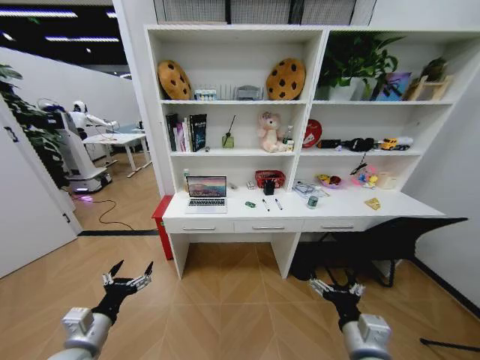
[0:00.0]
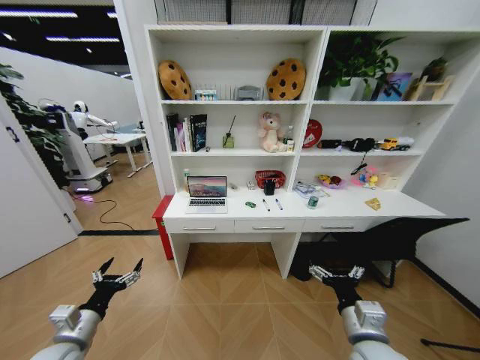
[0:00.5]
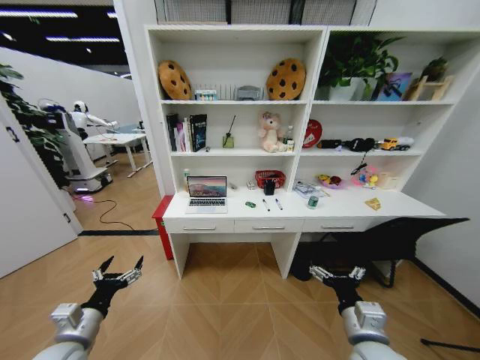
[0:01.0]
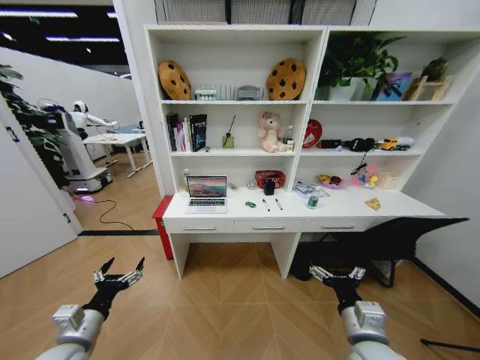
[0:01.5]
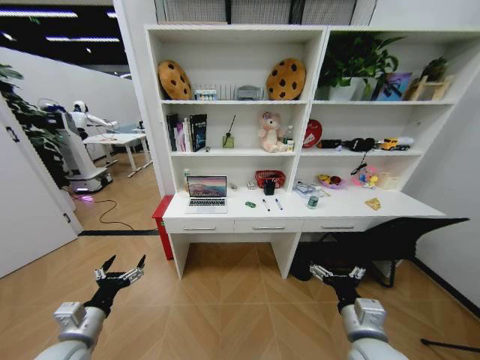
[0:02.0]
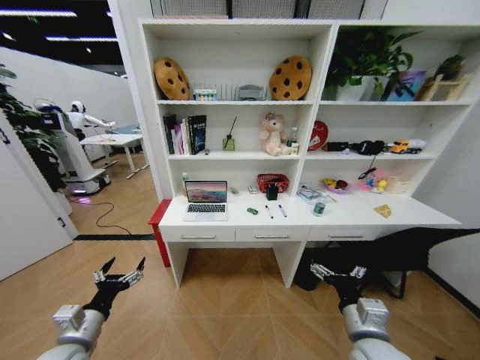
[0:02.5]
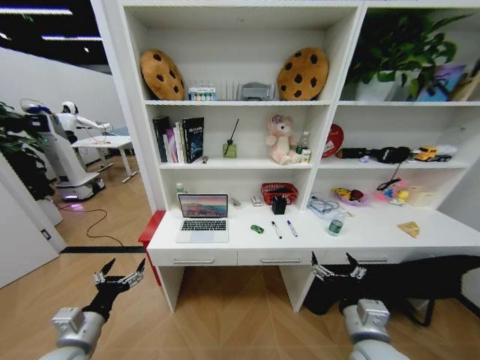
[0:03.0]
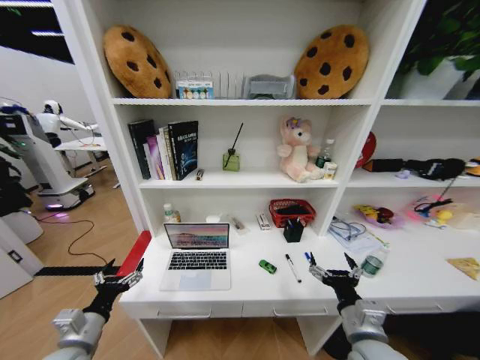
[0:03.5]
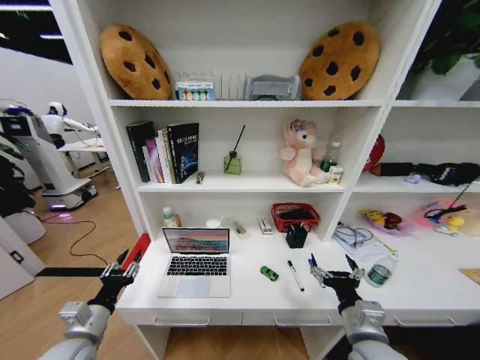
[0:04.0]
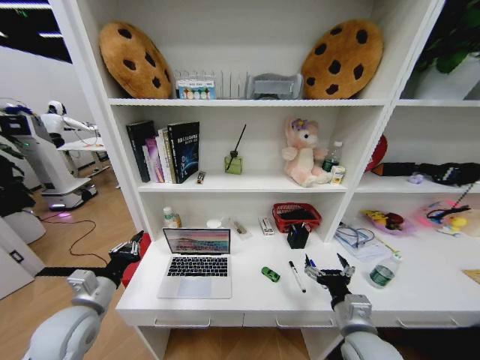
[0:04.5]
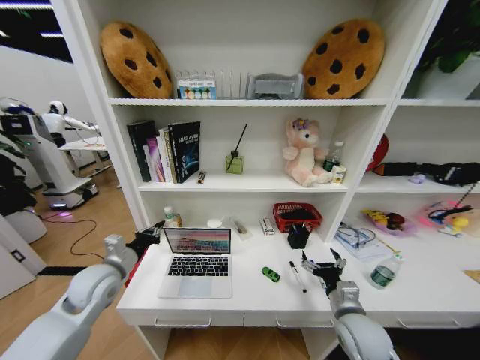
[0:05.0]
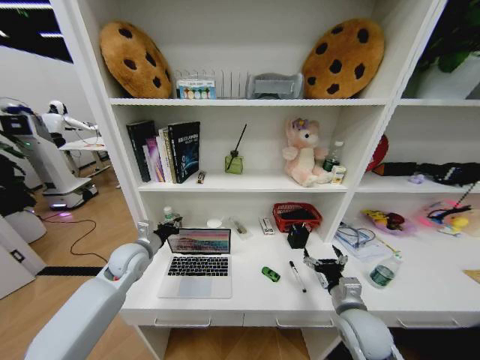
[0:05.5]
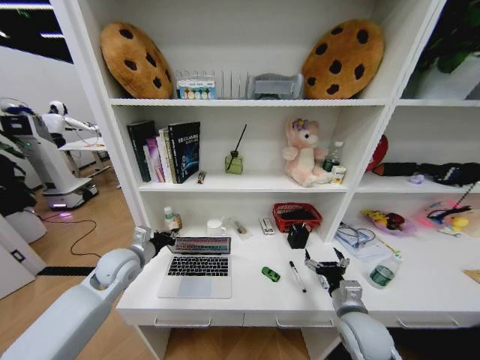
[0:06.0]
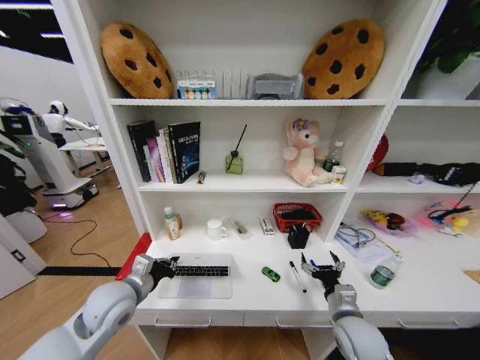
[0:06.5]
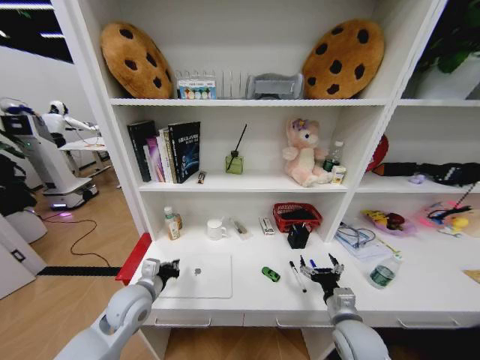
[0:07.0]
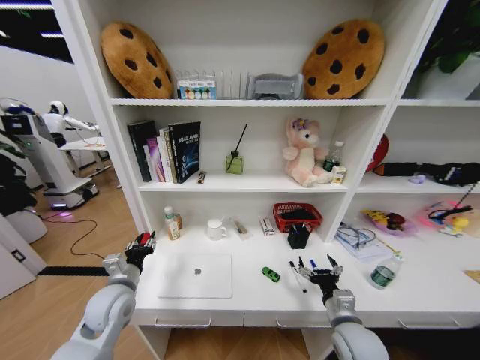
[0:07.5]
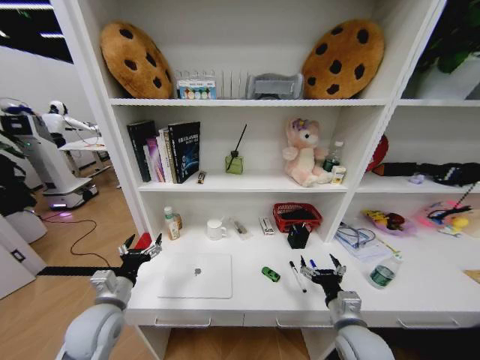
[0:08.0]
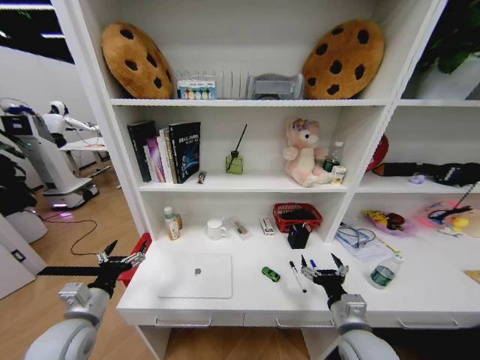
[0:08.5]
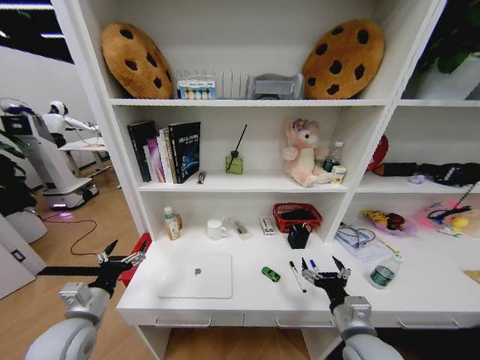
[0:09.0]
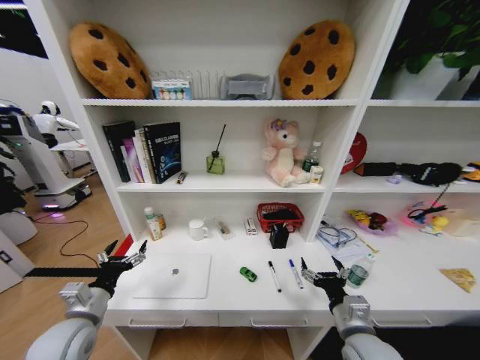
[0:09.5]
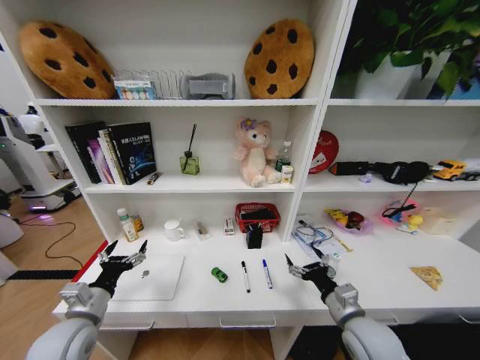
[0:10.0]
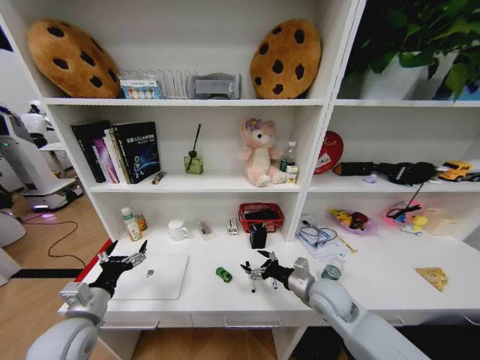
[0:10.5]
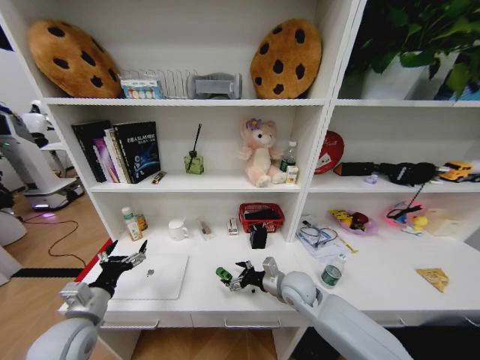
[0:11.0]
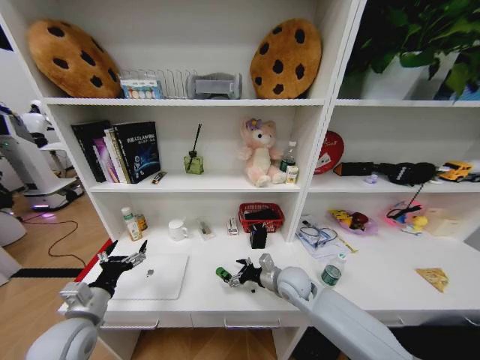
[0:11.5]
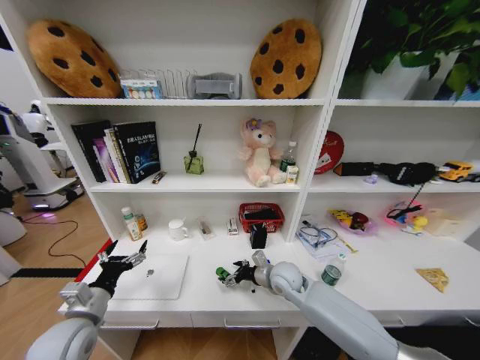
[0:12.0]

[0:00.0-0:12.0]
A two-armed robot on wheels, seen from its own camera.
Task of the whole recording: Organize the objects on the table.
0:02.0 to 0:04.0: The left gripper closes its fingers.
0:04.0 to 0:06.0: The left gripper travels forward by about 20 cm, and closes; the right gripper moves forward, approximately 5 cm.
0:06.0 to 0:08.0: The left gripper heads backward, covering approximately 15 cm, and opens.
0:10.0 to 0:12.0: The right gripper heads forward and to the left, covering about 20 cm.

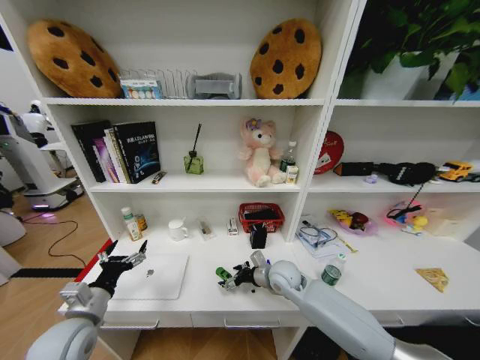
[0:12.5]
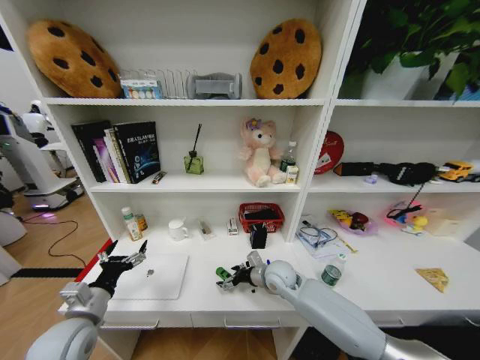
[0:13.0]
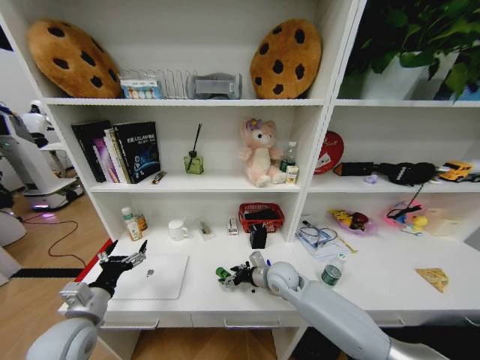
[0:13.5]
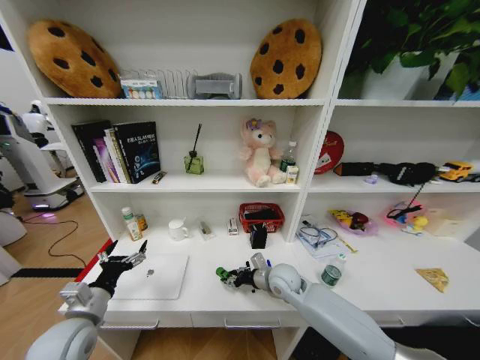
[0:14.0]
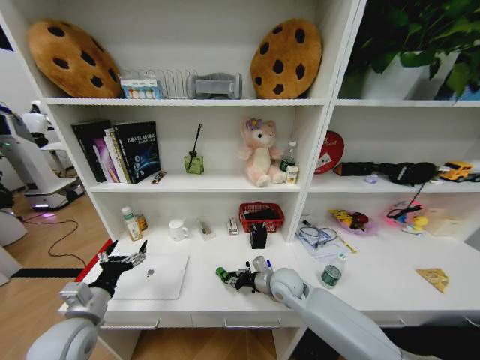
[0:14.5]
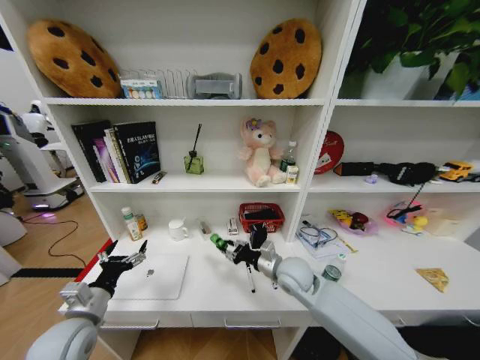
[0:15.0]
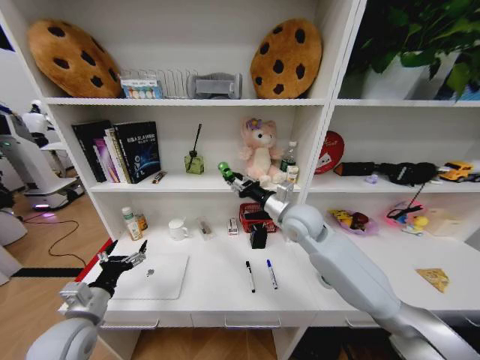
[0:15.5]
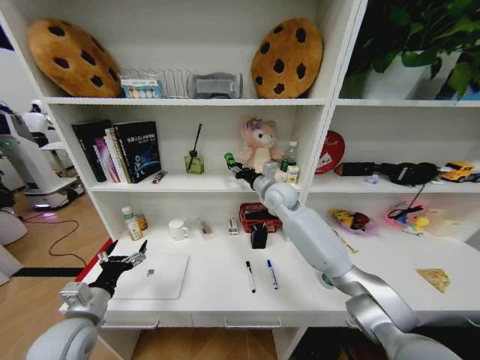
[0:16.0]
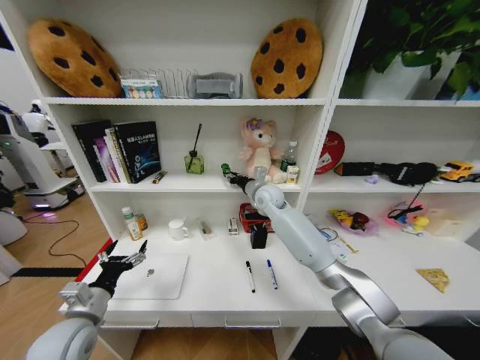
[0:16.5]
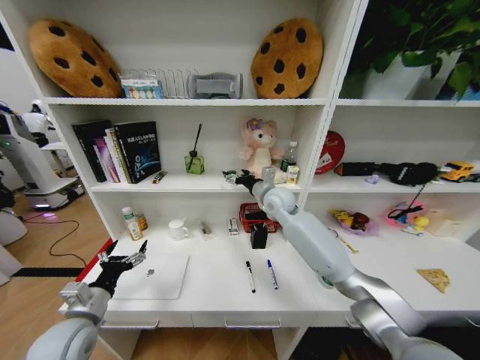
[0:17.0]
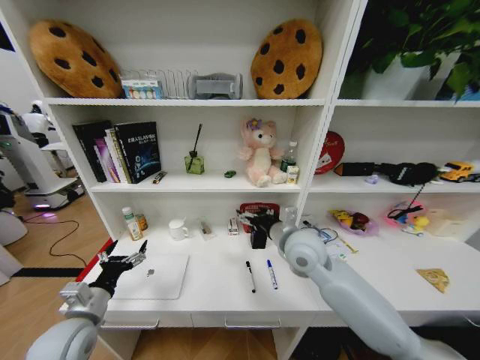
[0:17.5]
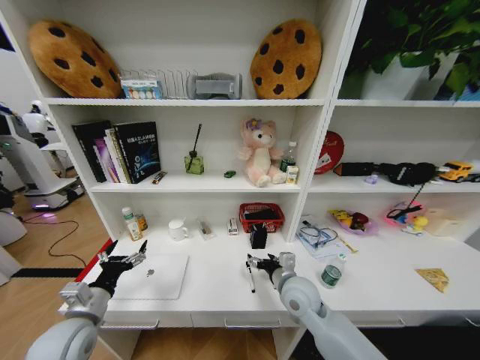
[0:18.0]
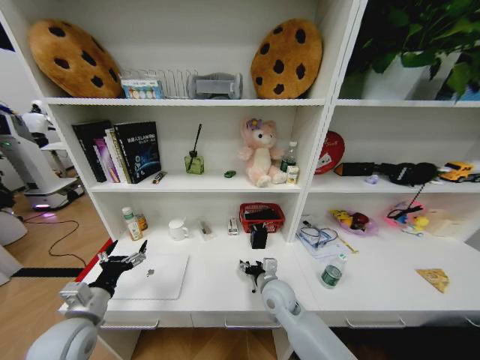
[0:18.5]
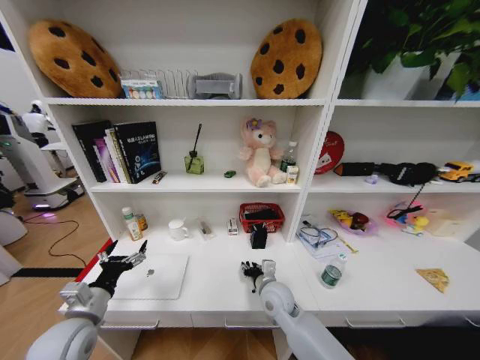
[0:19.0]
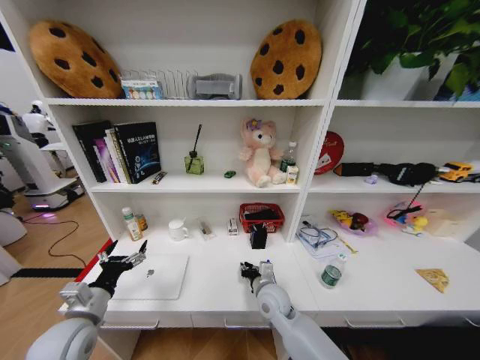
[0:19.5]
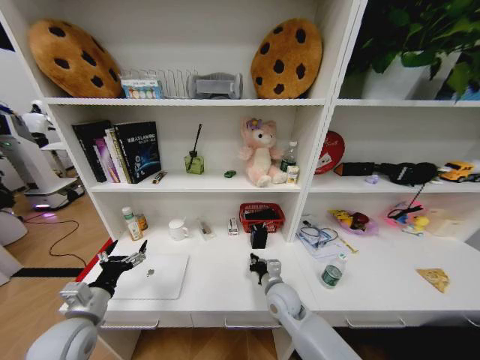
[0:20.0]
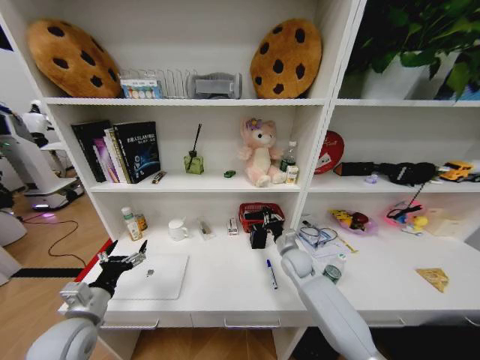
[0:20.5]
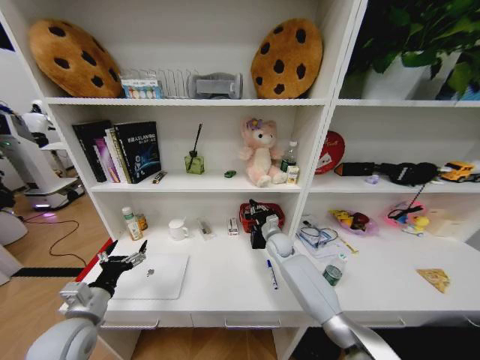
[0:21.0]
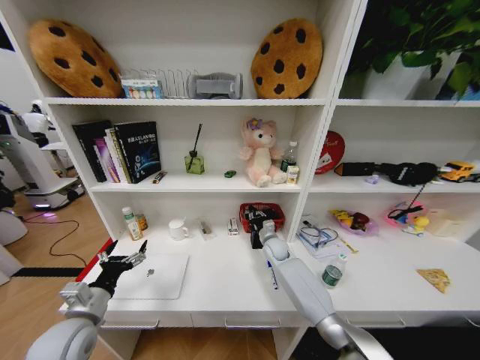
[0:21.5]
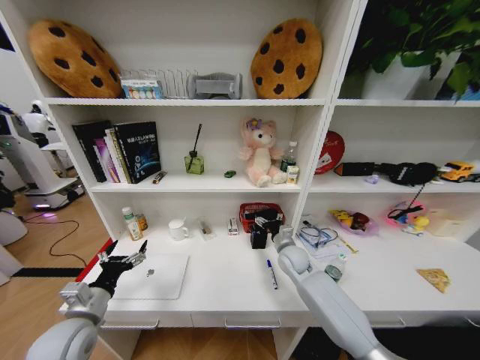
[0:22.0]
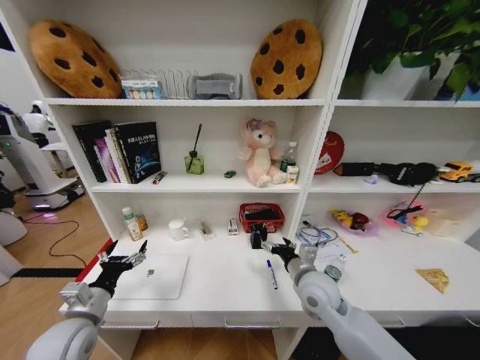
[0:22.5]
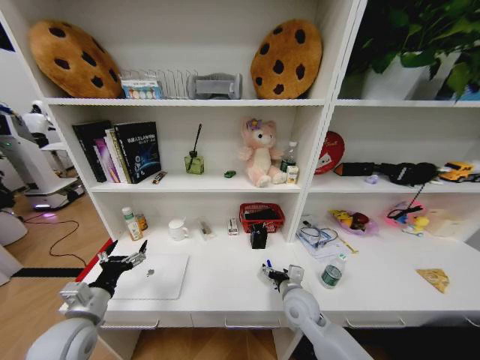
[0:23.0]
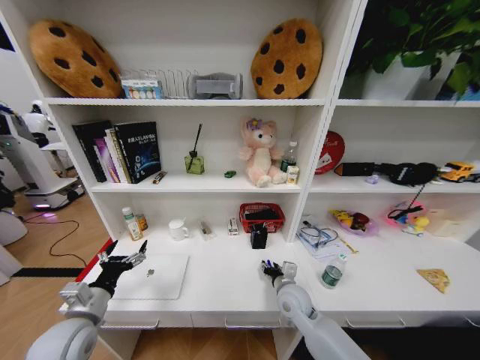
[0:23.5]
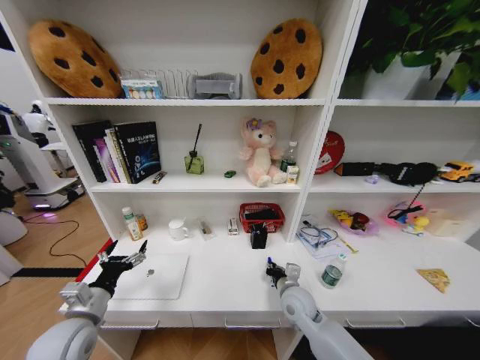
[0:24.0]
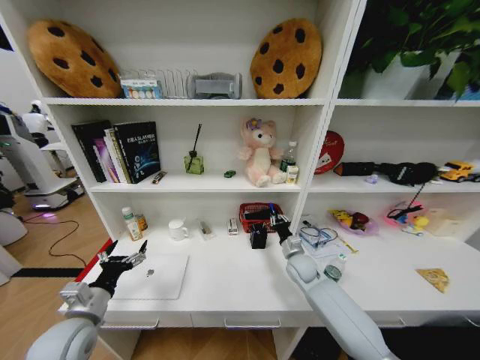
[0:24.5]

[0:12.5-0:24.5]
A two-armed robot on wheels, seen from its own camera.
Task of the whole recording: Organize the objects on the table.
0:12.5 to 0:14.5: The right gripper closes its fingers.
0:14.5 to 0:16.5: The right gripper shifts roughly 25 cm forward and upward.
0:16.5 to 0:18.5: The right gripper goes roughly 30 cm backward and downward, and opens up.
0:18.5 to 0:20.5: The right gripper moves forward and to the right, about 15 cm, and closes its fingers.
0:20.5 to 0:22.5: The right gripper heads backward and upward, covering about 15 cm, and opens up.
0:22.5 to 0:24.5: The right gripper goes roughly 15 cm forward and downward, and closes.

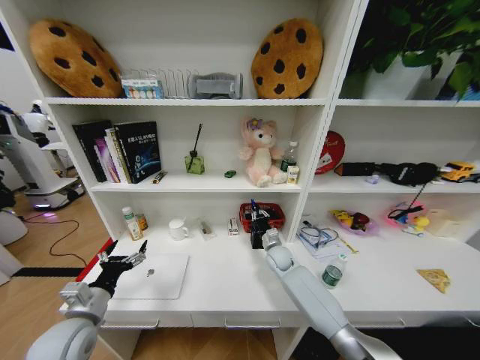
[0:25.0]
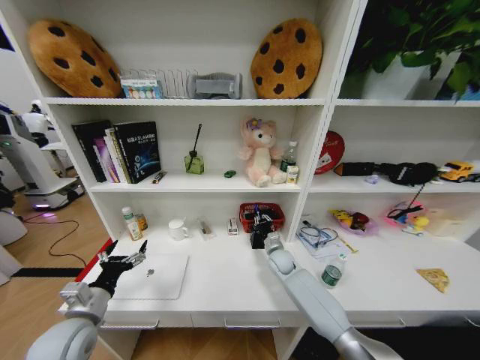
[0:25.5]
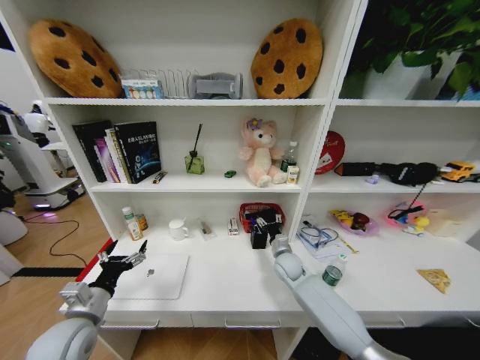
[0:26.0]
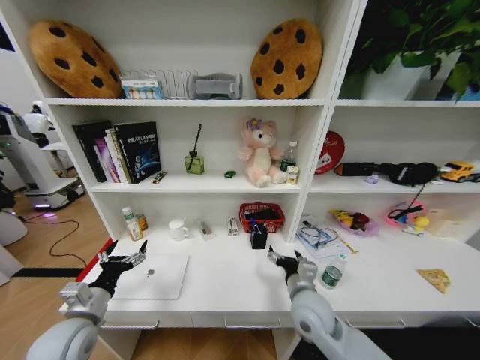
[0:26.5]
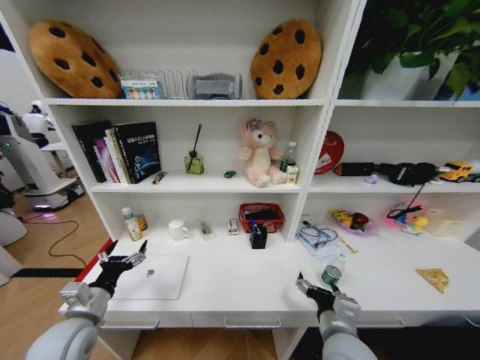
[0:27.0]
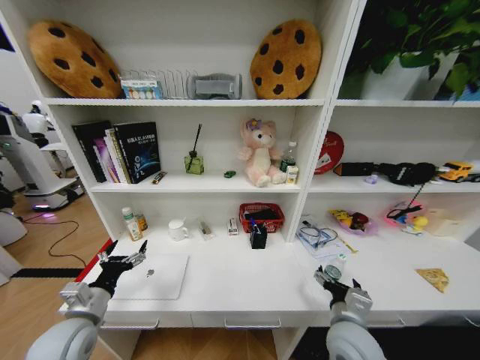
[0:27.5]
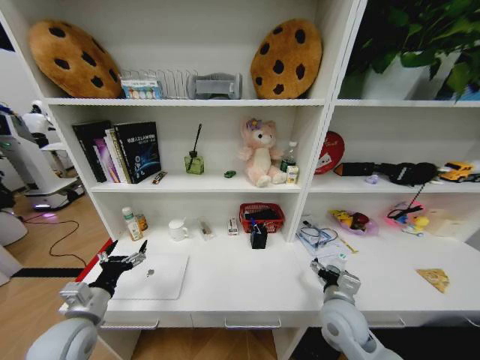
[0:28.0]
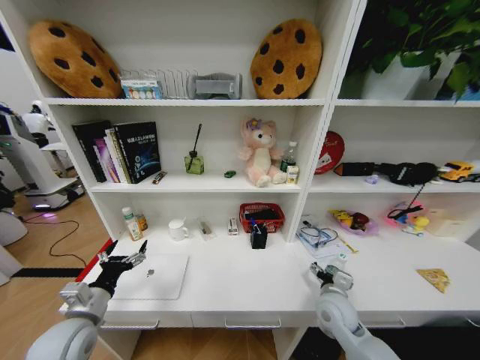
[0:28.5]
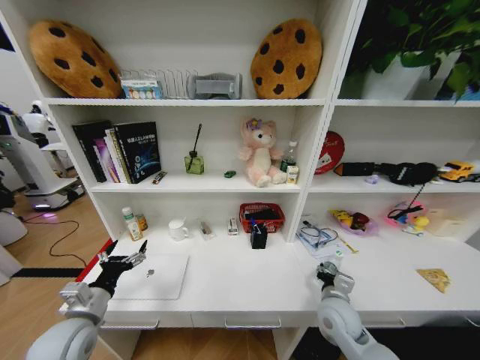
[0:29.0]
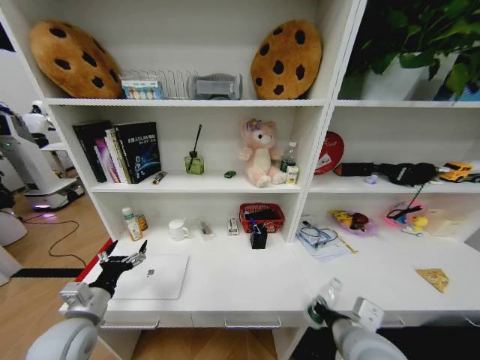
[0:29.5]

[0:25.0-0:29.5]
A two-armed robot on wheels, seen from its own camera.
Task of the whole recording: Organize the objects on the table.
0:25.0 to 0:27.0: The right gripper goes about 30 cm backward, and opens up.
0:27.0 to 0:29.5: The right gripper travels upward by roughly 5 cm, goes forward and returns, about 10 cm each way, and closes up.
